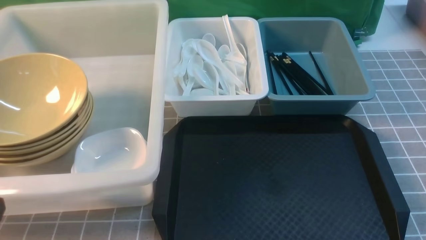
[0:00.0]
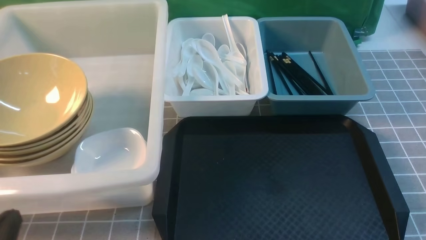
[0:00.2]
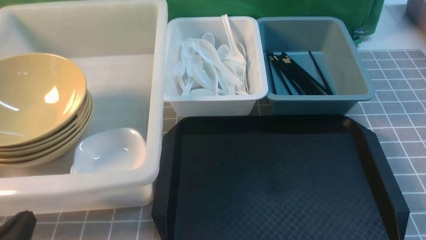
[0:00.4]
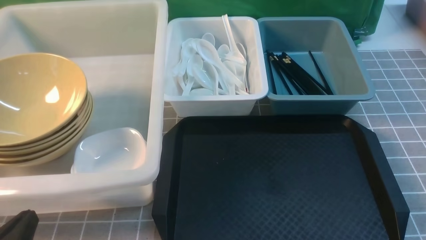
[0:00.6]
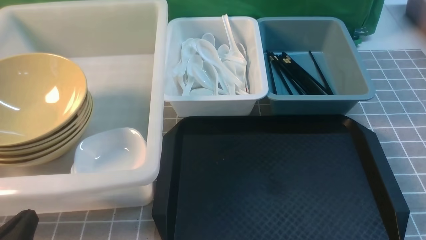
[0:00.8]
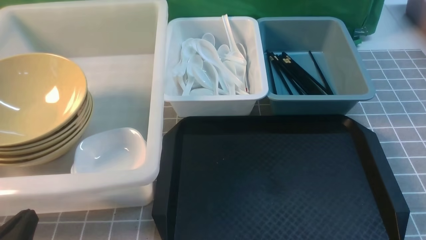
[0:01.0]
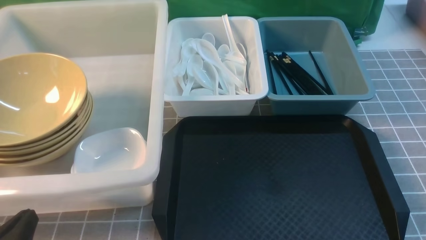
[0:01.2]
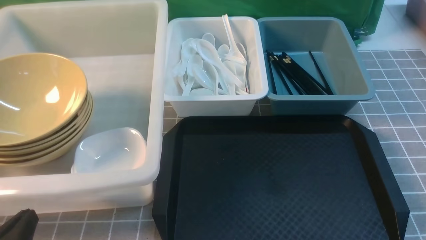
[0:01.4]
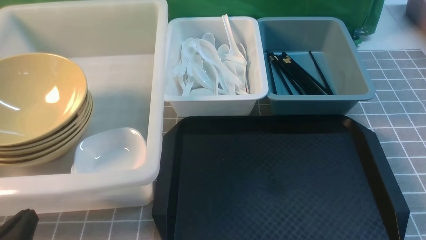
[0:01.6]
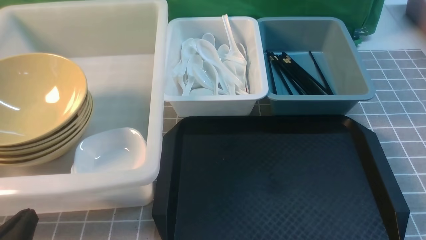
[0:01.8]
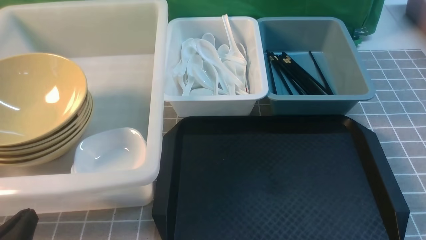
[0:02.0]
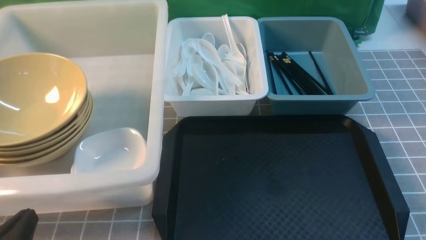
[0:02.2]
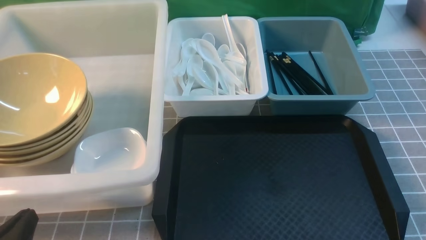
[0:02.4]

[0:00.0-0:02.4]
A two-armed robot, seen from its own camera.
Task of the whole recording: on grey table put chopsticks spoon bowls plates into blue grey white boxes.
0:00.0 to 0:01.2: The left gripper heads downward, covering about 5 cm.
0:01.2 to 0:02.4: Neither gripper changes place.
